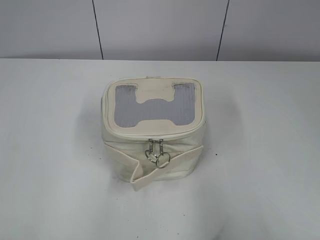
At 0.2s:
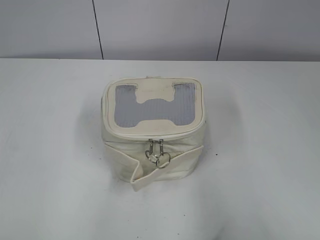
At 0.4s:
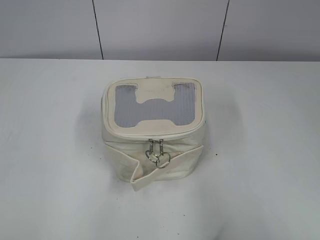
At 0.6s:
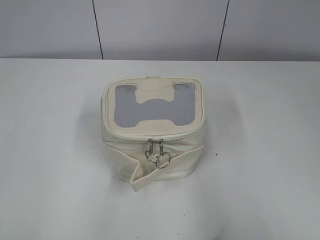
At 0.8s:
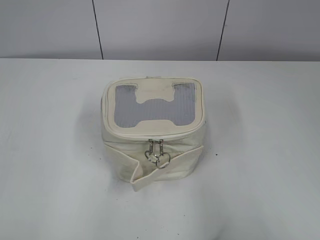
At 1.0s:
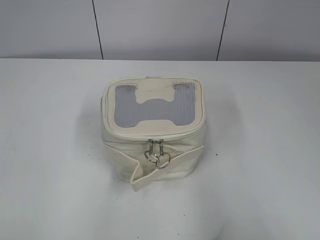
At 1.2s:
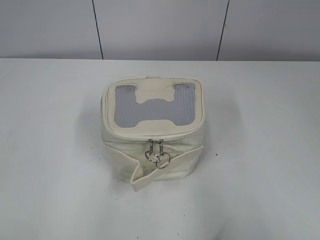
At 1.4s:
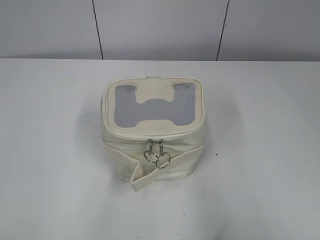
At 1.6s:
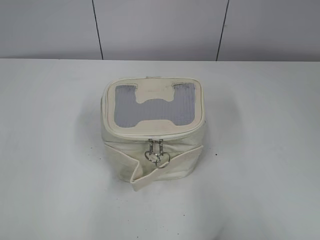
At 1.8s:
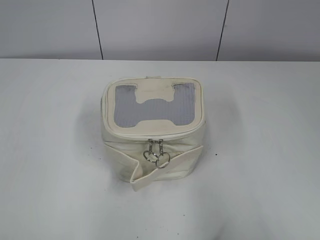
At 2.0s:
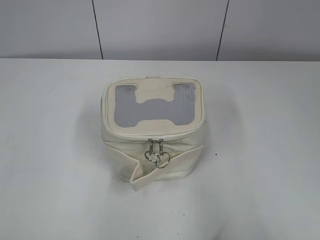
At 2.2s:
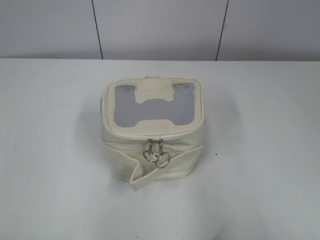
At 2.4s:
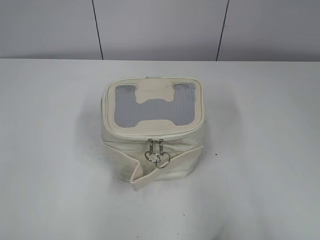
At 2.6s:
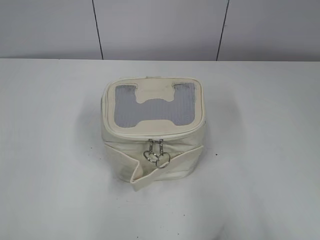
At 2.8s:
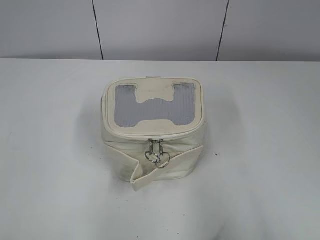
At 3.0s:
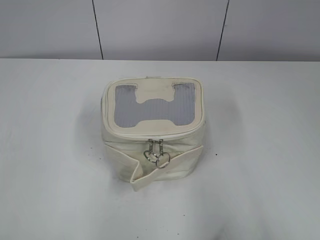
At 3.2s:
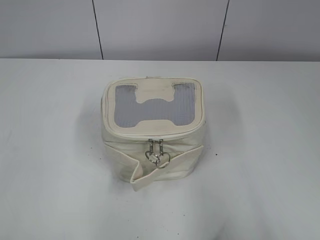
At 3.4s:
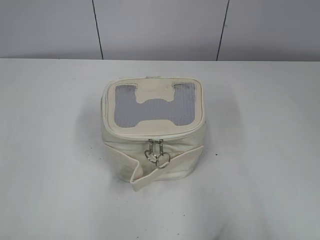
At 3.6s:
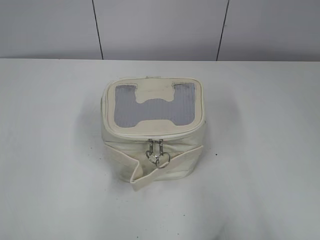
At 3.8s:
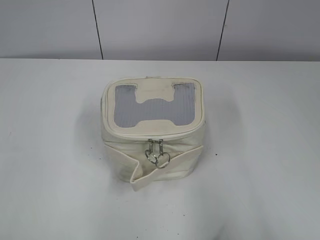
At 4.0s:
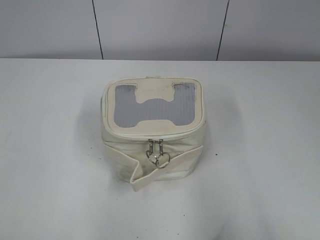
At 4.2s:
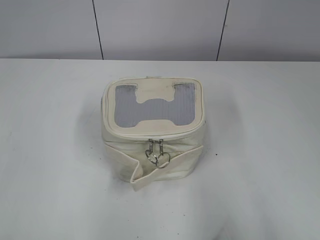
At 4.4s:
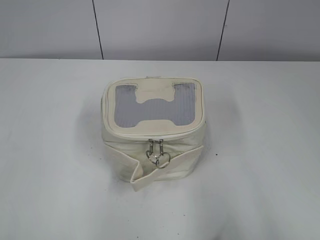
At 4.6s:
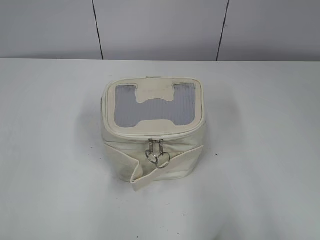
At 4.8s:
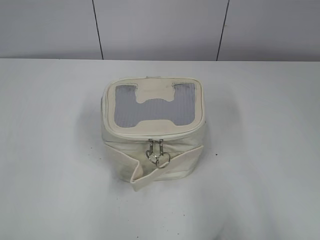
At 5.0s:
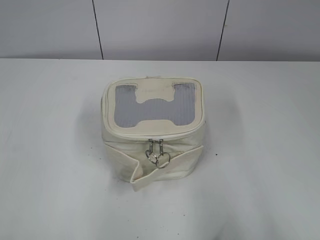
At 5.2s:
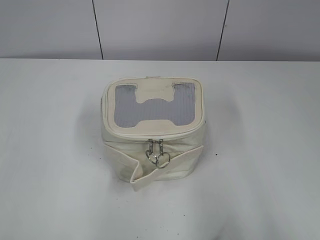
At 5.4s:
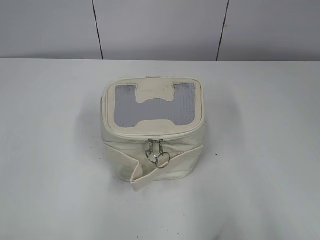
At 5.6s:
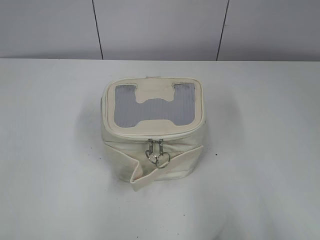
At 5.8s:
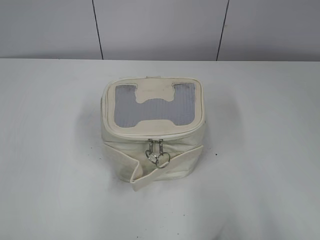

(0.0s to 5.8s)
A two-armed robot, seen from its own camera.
0.0s - 1.4s: The two grippers keep their place.
2.8s - 5.8s: Both grippers stay put.

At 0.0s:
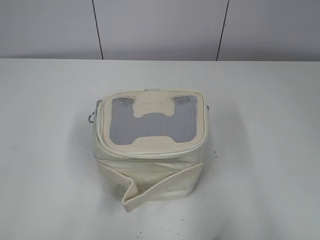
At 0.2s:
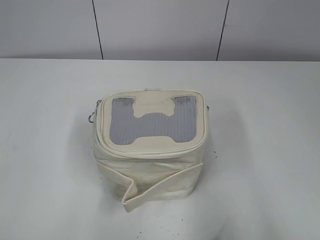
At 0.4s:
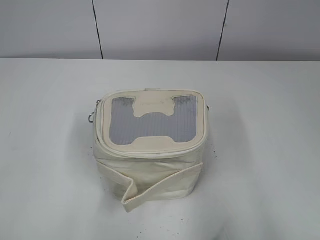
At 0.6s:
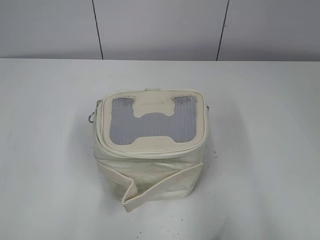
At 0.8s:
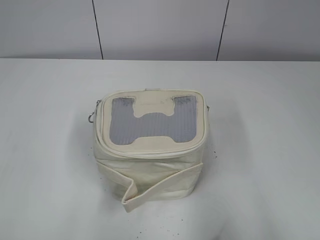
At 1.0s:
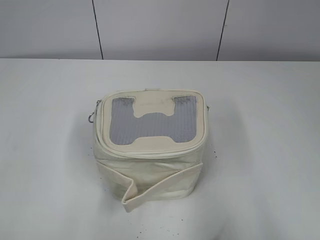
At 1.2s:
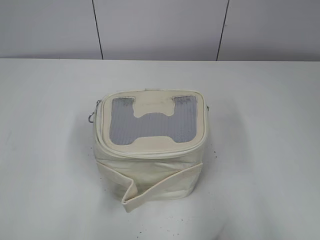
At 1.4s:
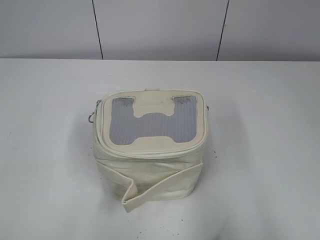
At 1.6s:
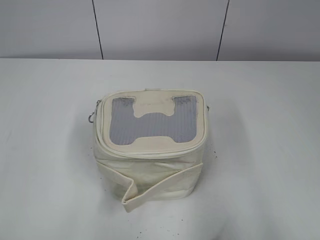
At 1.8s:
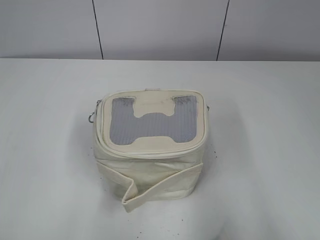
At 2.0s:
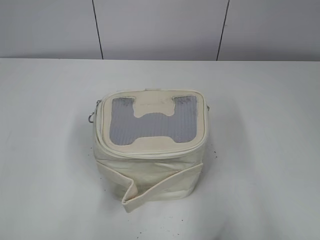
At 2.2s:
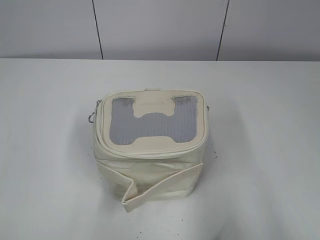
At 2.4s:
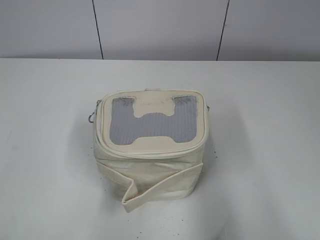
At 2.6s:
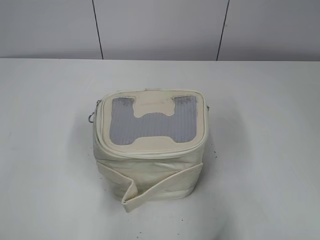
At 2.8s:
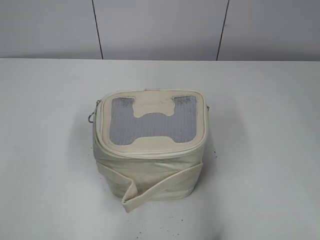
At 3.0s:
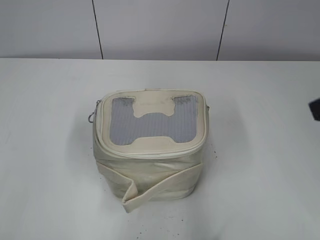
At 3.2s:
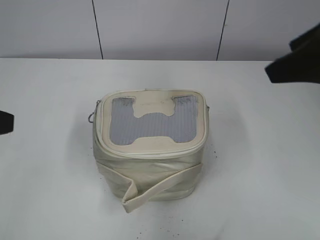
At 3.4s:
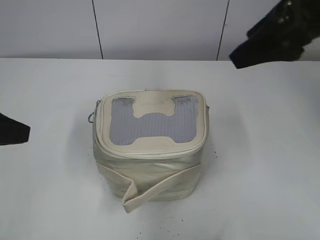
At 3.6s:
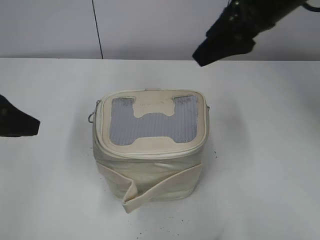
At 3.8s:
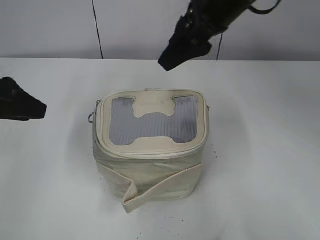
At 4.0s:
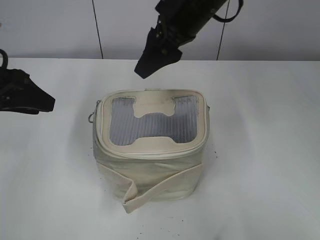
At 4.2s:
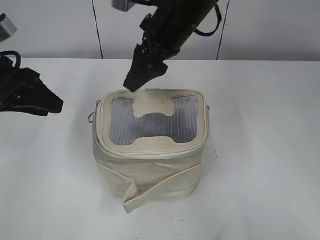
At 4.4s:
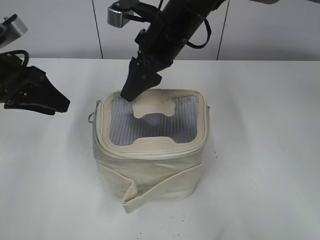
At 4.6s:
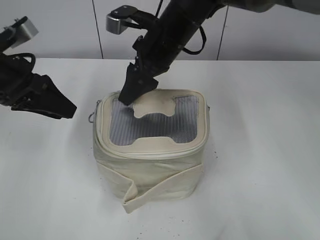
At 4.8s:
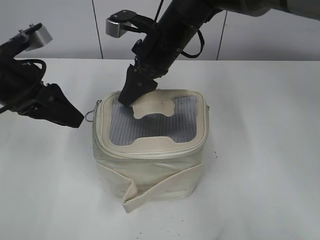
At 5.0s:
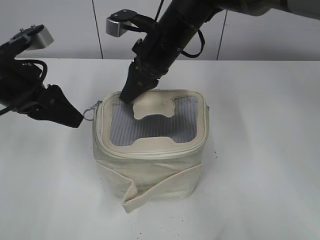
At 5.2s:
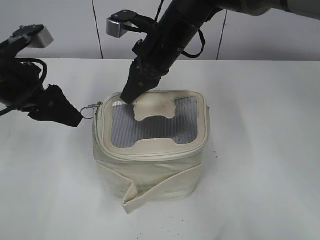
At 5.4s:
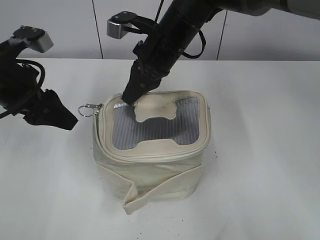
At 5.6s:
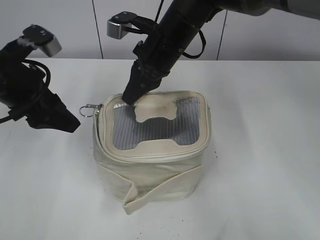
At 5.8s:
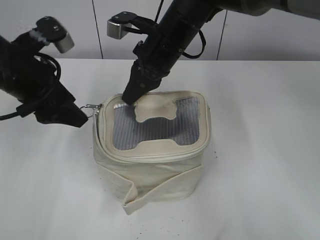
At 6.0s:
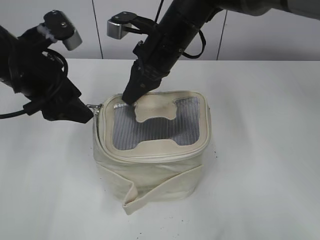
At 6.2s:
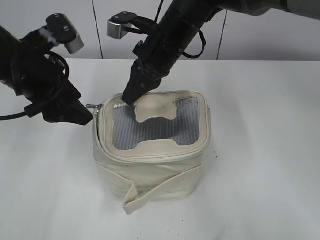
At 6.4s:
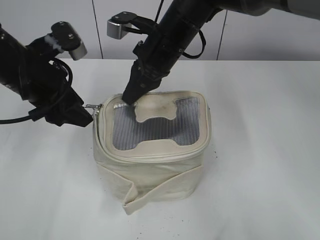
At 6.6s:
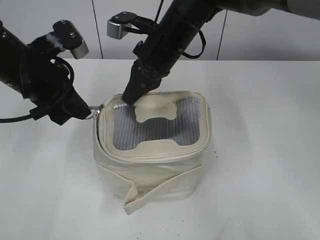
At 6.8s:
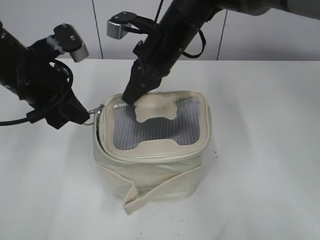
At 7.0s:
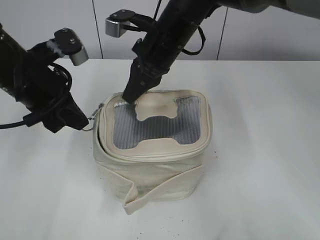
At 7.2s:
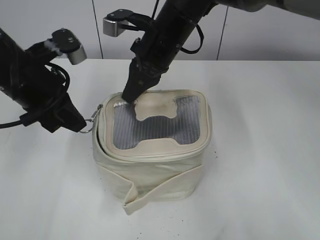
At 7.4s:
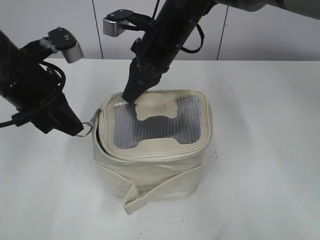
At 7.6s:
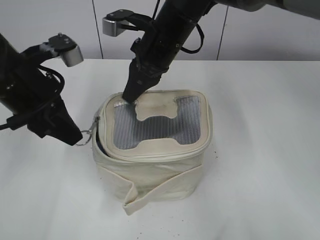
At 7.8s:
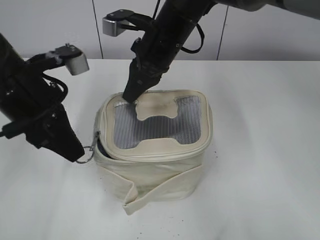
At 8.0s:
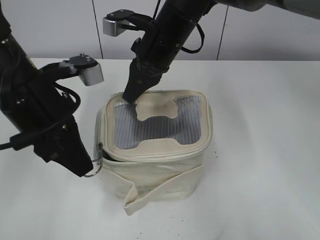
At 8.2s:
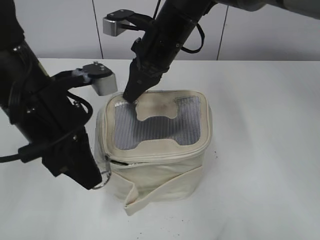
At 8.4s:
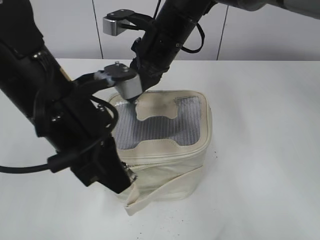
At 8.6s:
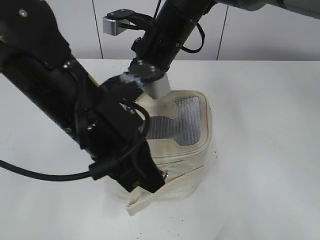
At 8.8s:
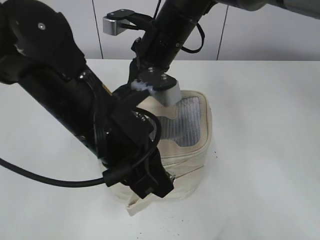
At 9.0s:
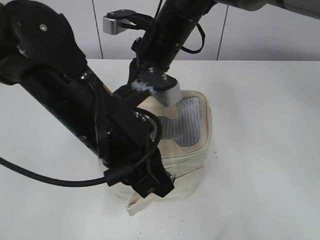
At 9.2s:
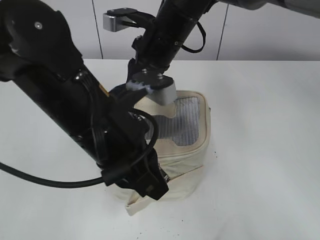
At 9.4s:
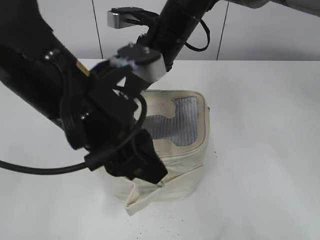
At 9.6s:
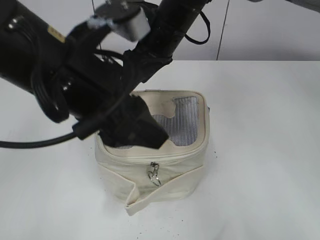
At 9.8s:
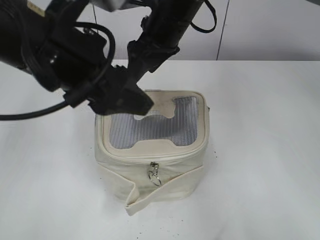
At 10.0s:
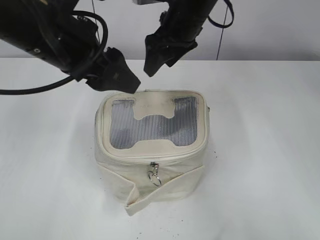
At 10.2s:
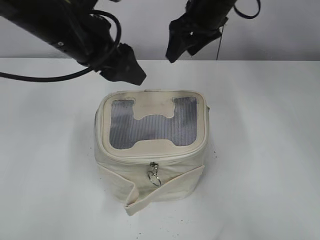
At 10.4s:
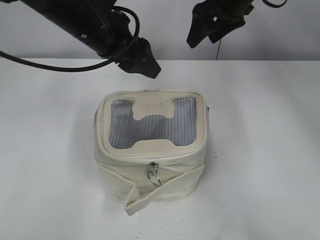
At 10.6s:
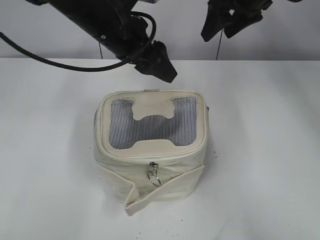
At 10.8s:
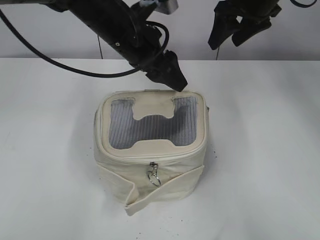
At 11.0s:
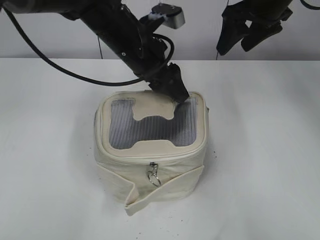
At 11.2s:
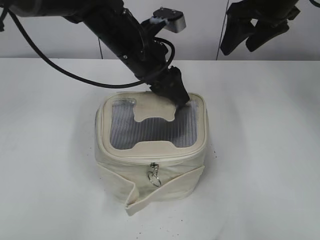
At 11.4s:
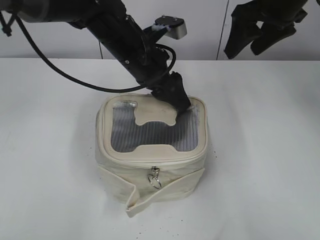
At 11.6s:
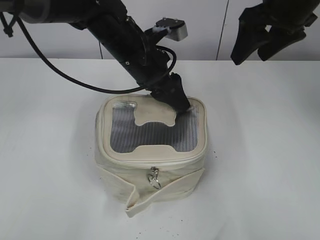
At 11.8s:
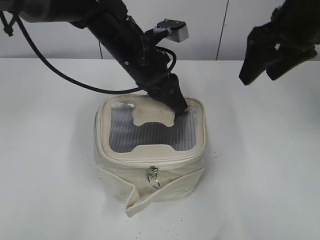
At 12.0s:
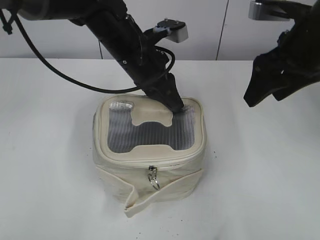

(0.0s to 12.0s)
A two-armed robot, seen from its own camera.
Step, 0.0s - 9.2s: Zip up the bag with your left hand.
Step, 9.4s - 9.8s: Hold the bag with your right hand.
1.6s - 3.0s: The grippers both shift forward by about 15 cm.
3.0s - 4.4s: The left gripper heads forward, covering about 15 cm. The right gripper moves forward, to the left and downward, some 35 cm.
4.4s - 6.0s: The right gripper closes up. Meanwhile the left gripper moves to the right, roughly 5 cm, and opens.
6.0s - 7.6s: The left gripper closes up.
7.6s - 9.0s: The left gripper is displaced to the right and backward by about 15 cm.
9.0s - 10.4s: The left gripper travels forward by some 15 cm, and opens up. The right gripper goes roughly 15 cm to the right, forward and upward, and opens.
10.4s - 12.0s: The right gripper is displaced backward and to the right by about 15 cm. The left gripper moves downward and to the right, about 10 cm, and closes its fingers.

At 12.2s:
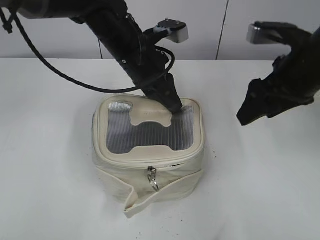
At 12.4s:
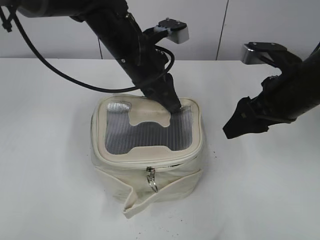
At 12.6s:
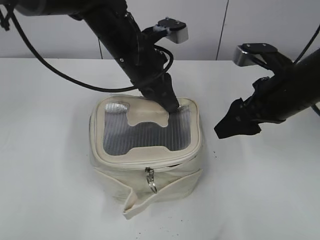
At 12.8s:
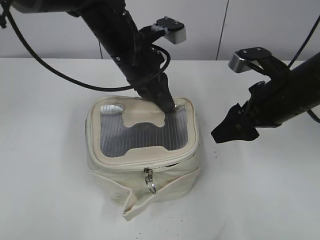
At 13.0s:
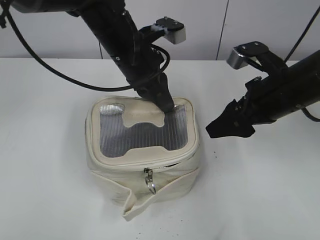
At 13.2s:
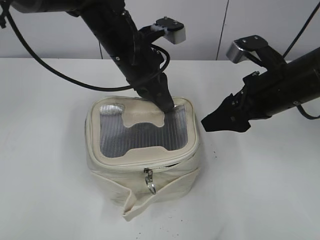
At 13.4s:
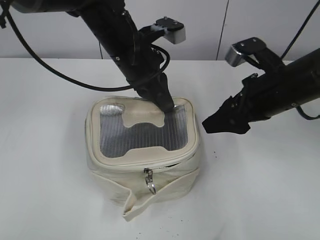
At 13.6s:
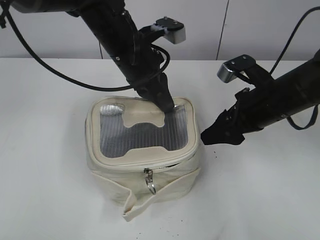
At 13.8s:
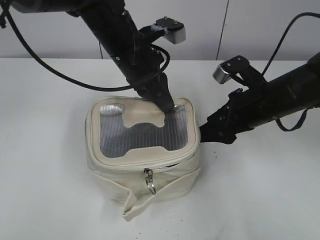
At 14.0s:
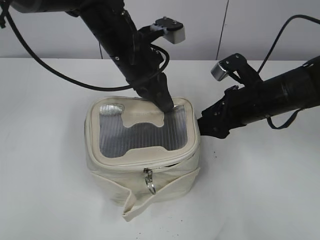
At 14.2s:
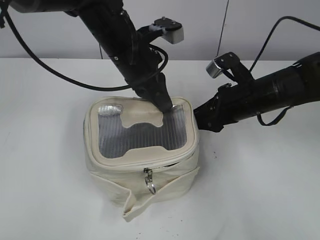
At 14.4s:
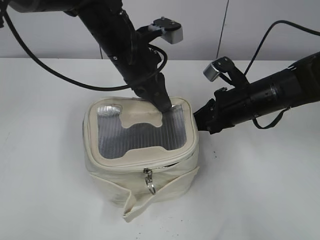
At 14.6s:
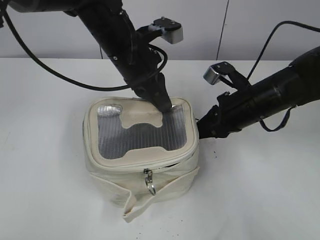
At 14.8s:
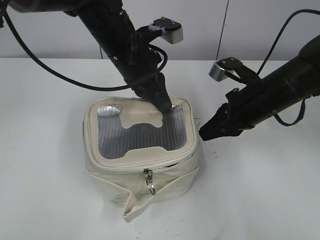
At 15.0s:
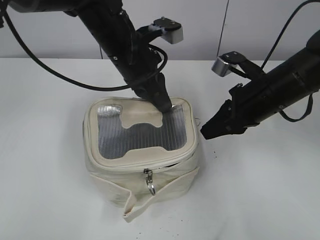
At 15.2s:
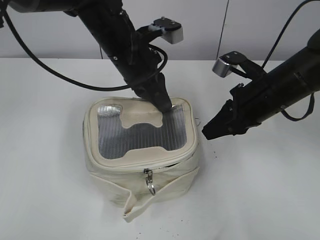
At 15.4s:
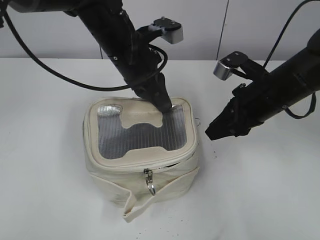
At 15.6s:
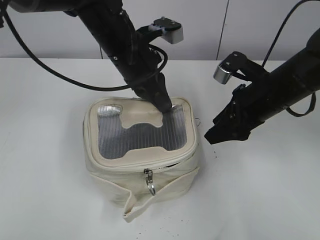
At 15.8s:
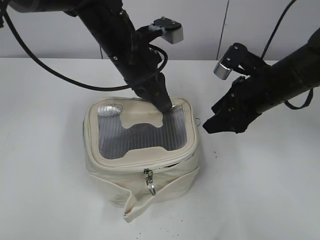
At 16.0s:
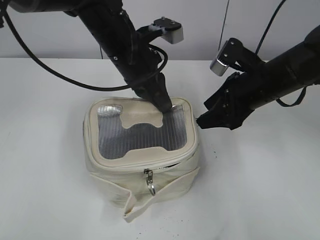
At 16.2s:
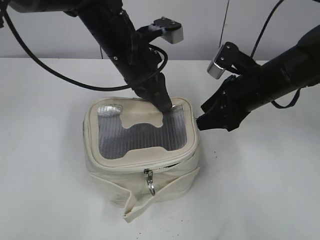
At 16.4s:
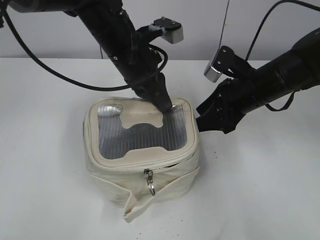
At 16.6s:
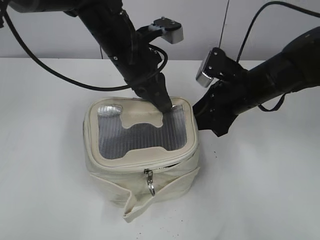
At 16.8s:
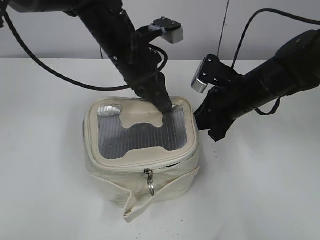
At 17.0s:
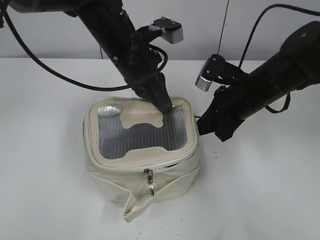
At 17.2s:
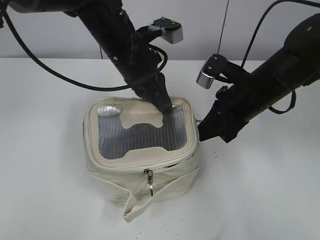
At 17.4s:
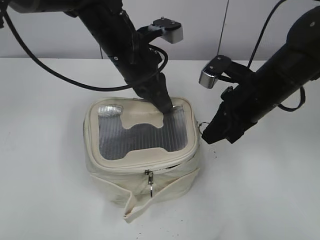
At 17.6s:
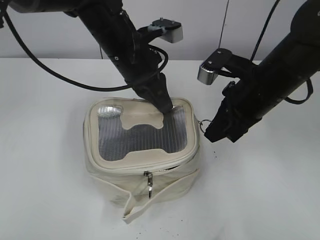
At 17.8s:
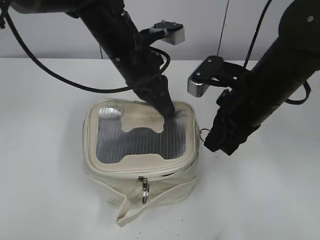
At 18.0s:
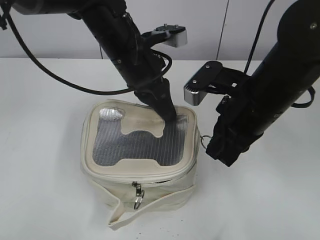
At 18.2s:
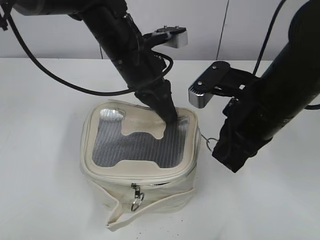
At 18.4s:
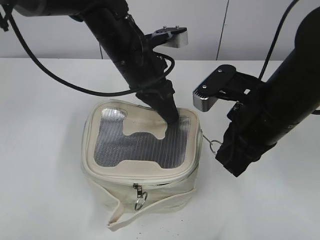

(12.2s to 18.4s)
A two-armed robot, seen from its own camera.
12.2s - 13.8s: The right gripper heads downward, covering approximately 10 cm.
13.8s - 15.4s: The right gripper closes up.
15.4s - 16.8s: The right gripper opens and closes again.
16.8s - 18.4s: The right gripper heads backward and upward, covering some 10 cm.
